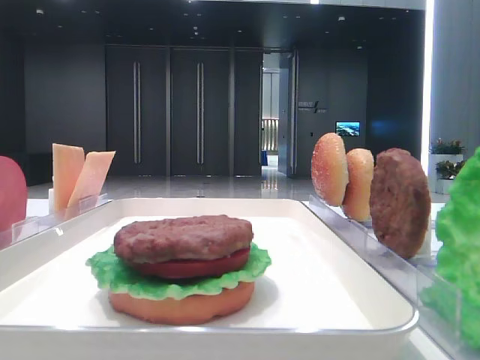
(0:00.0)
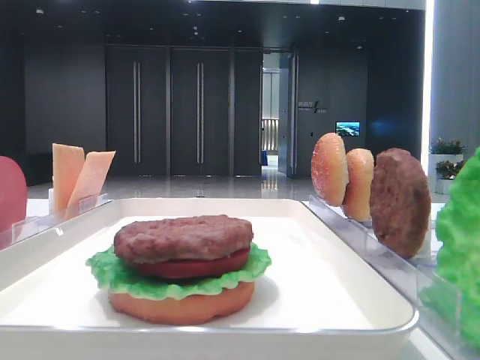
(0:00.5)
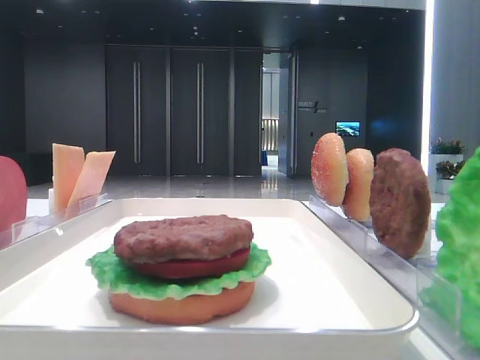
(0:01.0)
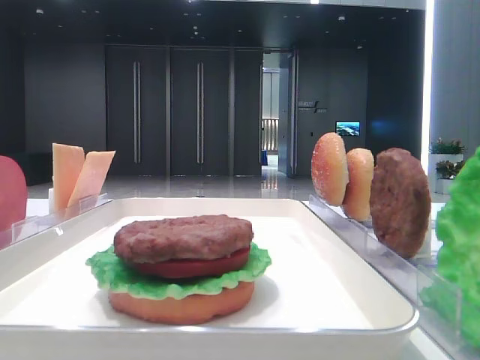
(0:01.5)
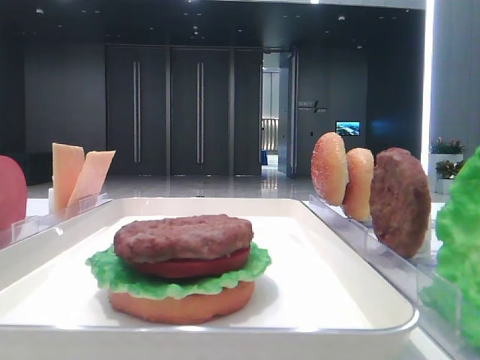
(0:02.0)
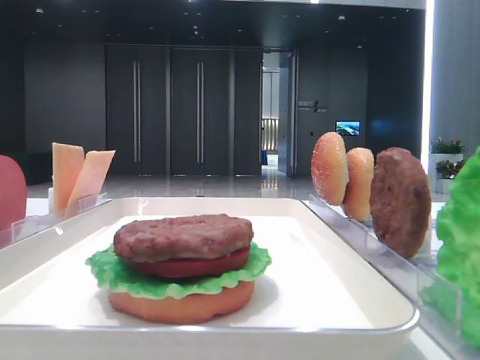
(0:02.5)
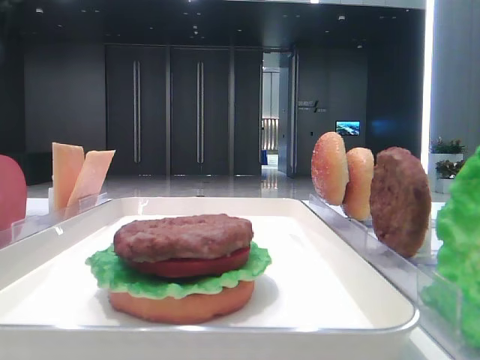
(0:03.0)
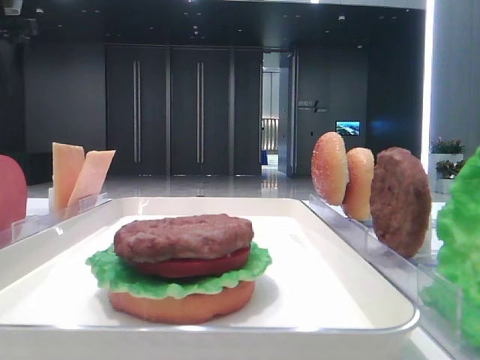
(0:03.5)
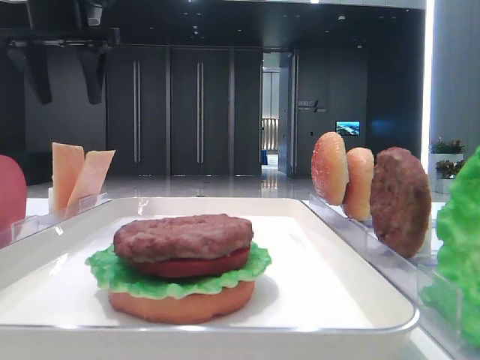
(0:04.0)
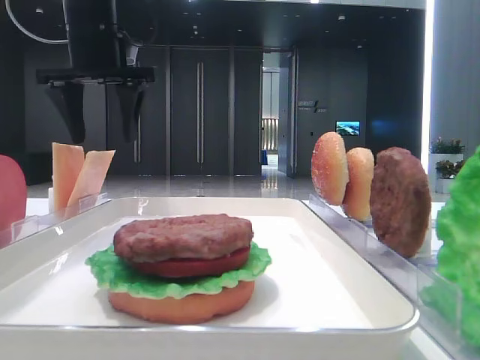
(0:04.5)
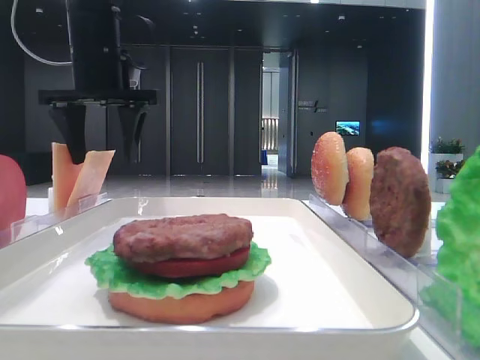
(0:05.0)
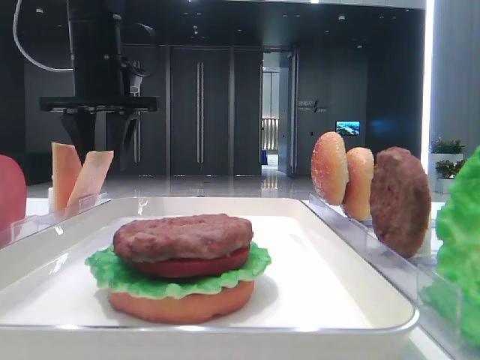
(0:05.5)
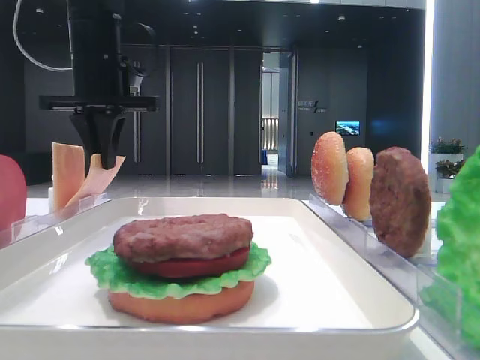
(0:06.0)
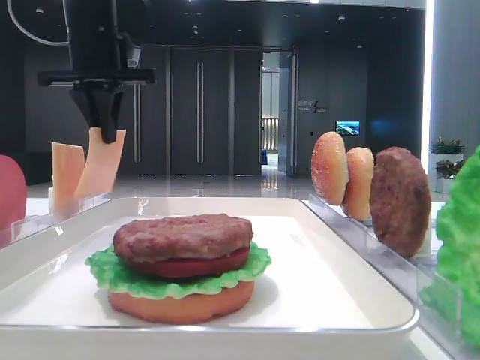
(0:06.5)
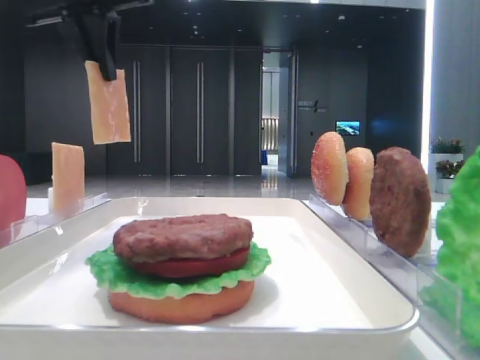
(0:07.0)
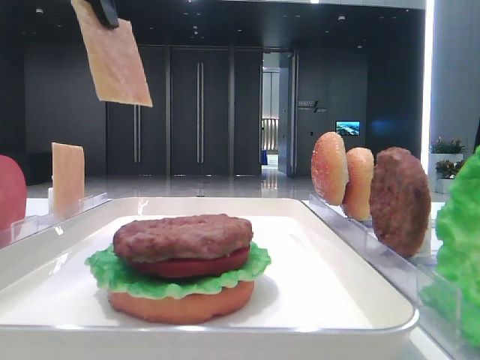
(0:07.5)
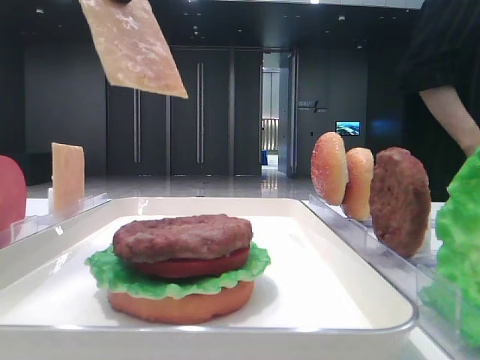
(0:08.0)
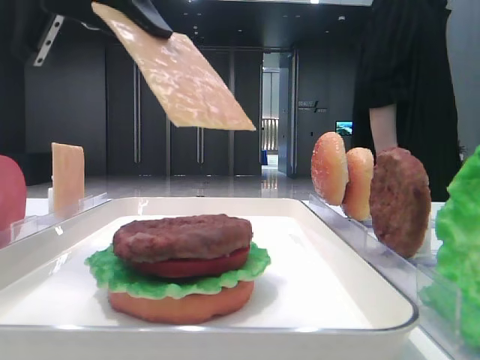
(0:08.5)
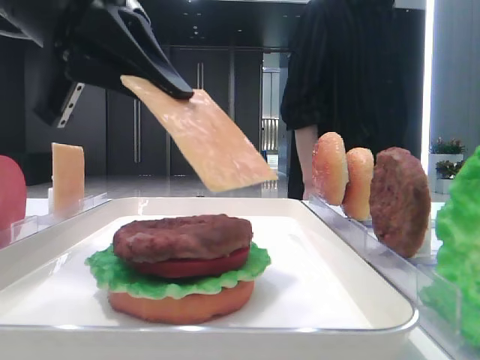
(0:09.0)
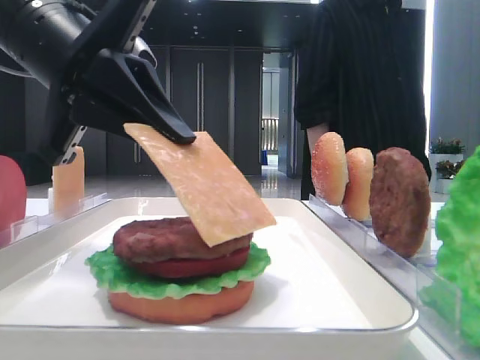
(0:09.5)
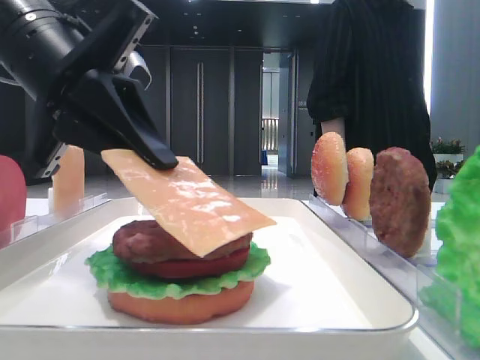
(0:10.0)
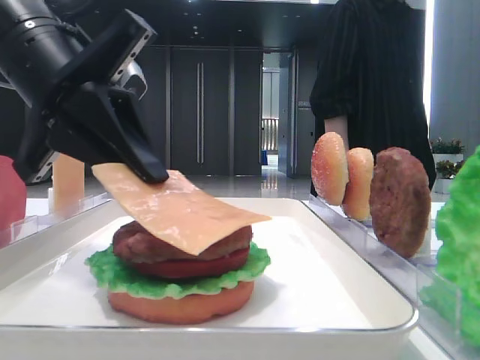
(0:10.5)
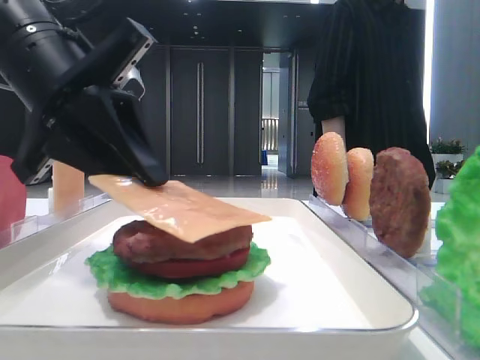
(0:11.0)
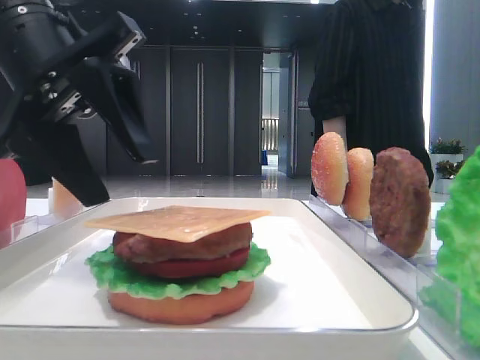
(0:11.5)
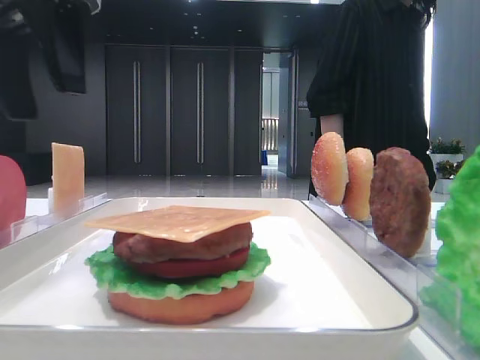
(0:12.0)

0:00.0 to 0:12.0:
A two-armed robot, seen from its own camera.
Step, 0:00.0 to 0:06.0: Pick up the cheese slice with the left hand.
Step, 0:06.5 to 0:11.0: Place the cheese slice on the patty with the left hand.
0:02.0 to 0:04.0: The left gripper travels forward and to the right by approximately 25 cm.
0:04.0 to 0:06.0: The left gripper heads downward and to the right, covering roughly 10 cm, and closes its fingers.
0:06.0 to 0:08.0: The left gripper travels backward and upward by approximately 20 cm.
0:08.0 to 0:10.0: The left gripper travels downward by roughly 15 cm.
0:10.0 to 0:12.0: The left gripper is displaced upward by some 10 cm, and opens.

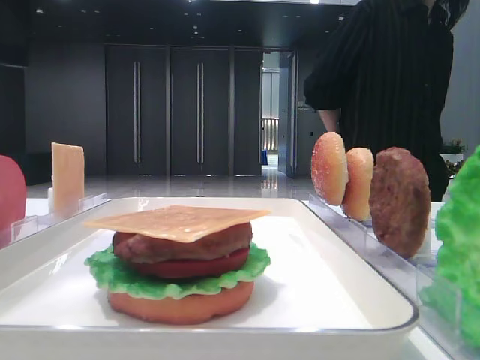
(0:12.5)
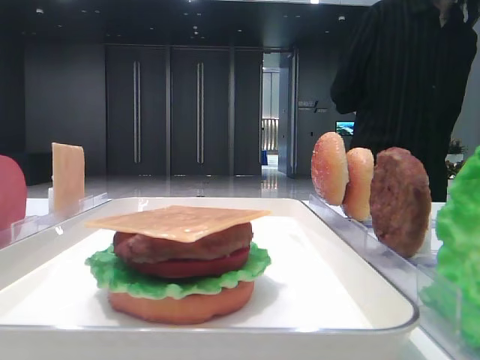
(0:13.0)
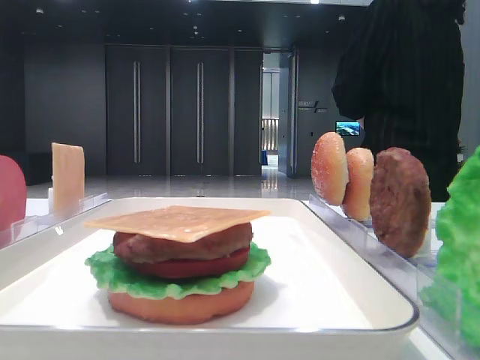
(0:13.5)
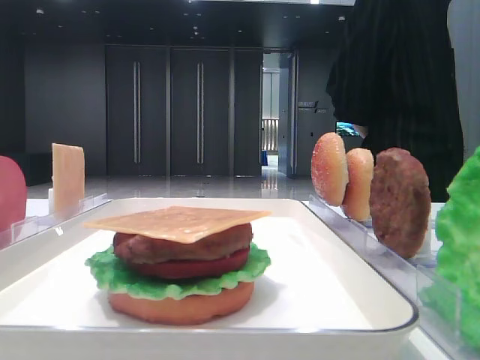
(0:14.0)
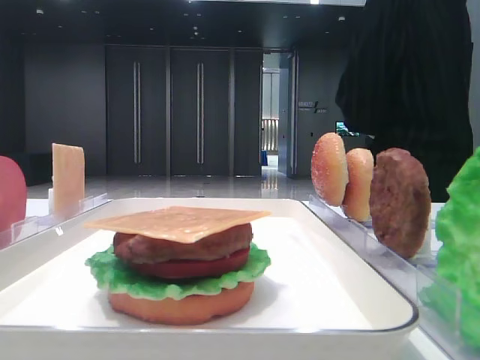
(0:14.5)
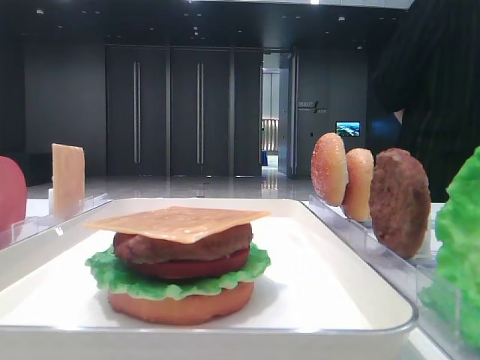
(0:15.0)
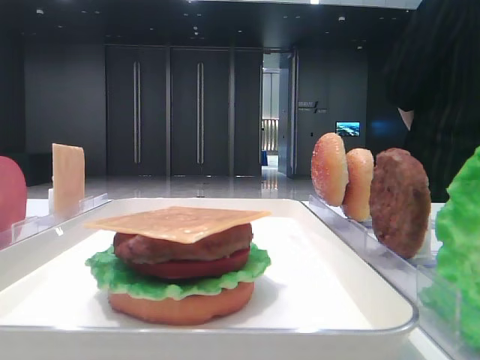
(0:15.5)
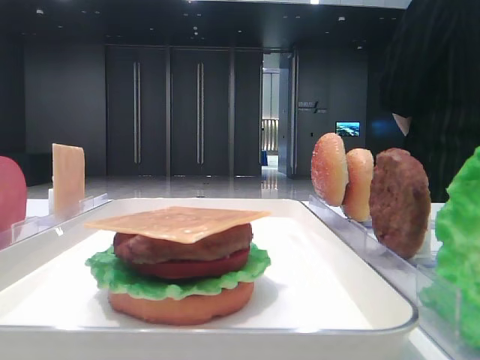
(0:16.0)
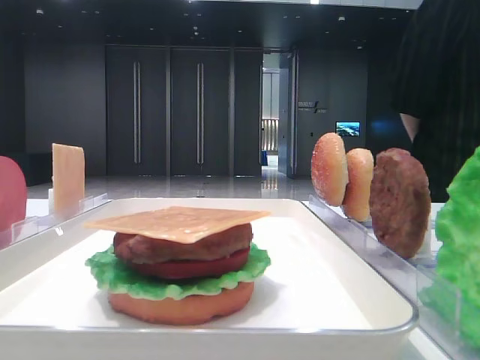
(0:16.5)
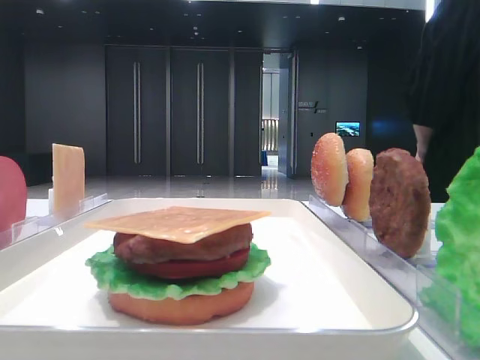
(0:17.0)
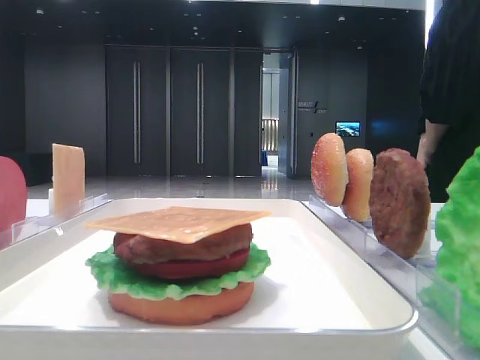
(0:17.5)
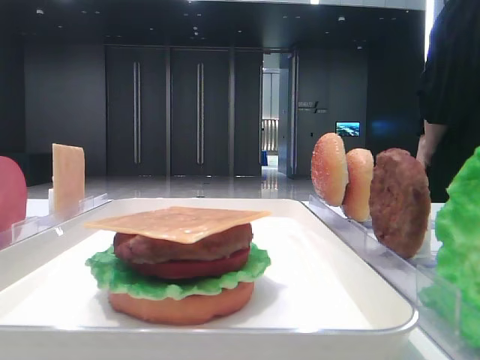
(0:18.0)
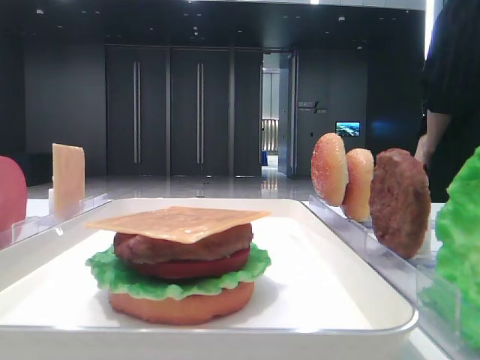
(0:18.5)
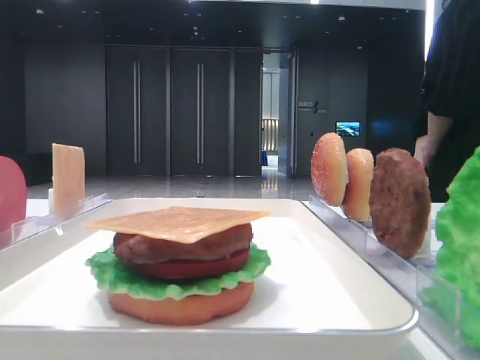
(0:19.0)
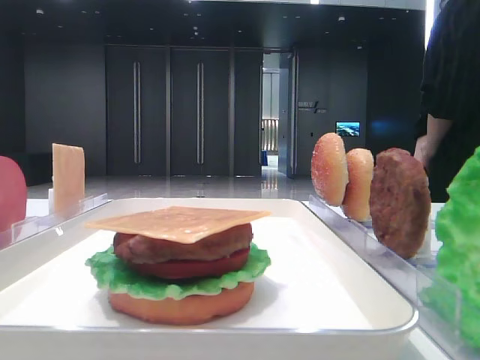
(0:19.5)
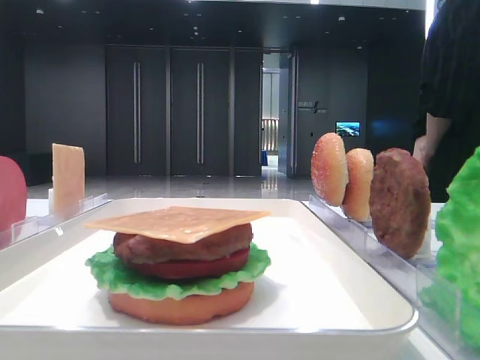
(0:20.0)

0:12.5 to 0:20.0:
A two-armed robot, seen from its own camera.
0:12.5 to 0:14.5: The left gripper moves backward, some 30 cm.
0:14.5 to 0:16.5: The grippers stay close to where they were, moving slightly.
0:16.5 to 0:18.0: Both grippers stay about where they are.

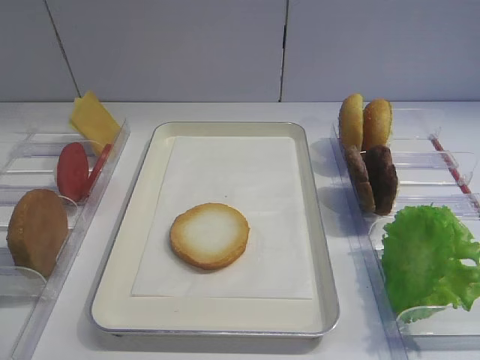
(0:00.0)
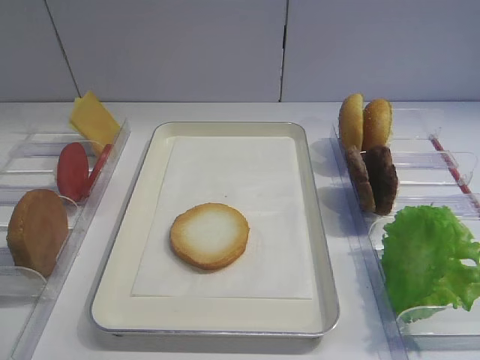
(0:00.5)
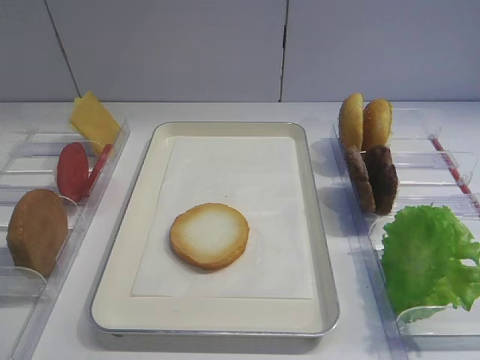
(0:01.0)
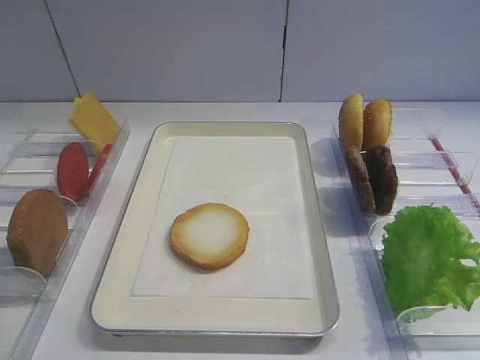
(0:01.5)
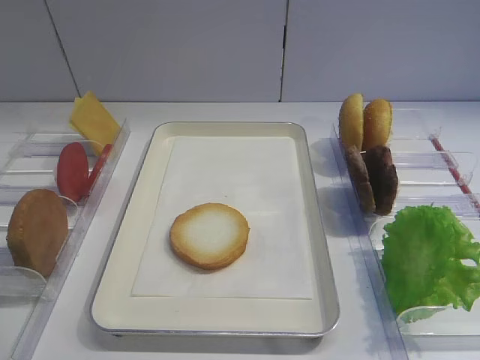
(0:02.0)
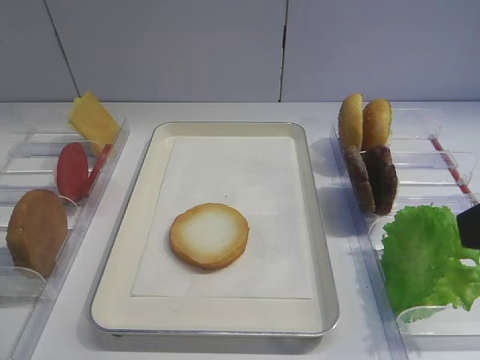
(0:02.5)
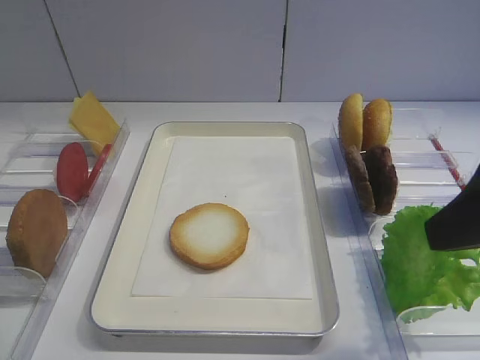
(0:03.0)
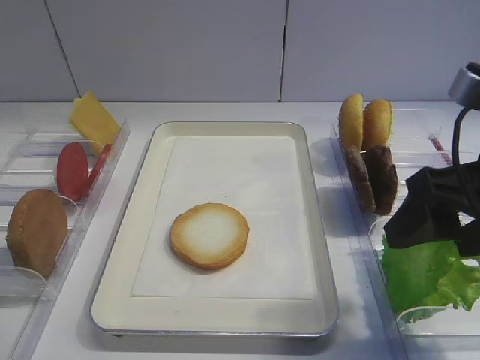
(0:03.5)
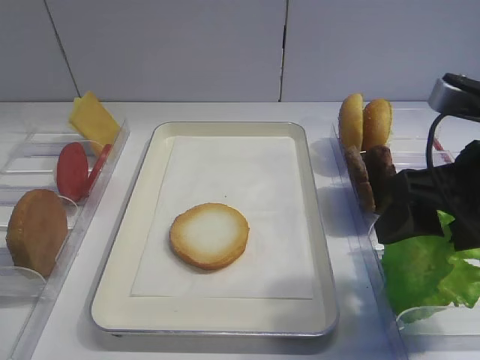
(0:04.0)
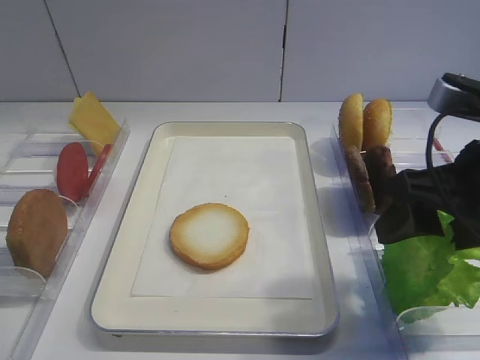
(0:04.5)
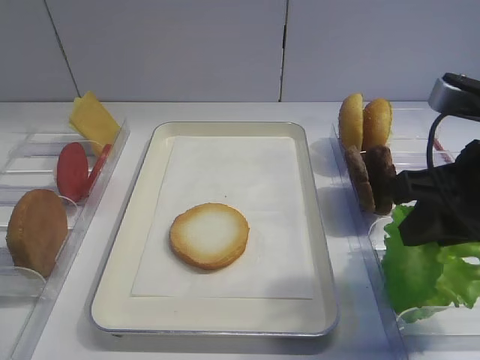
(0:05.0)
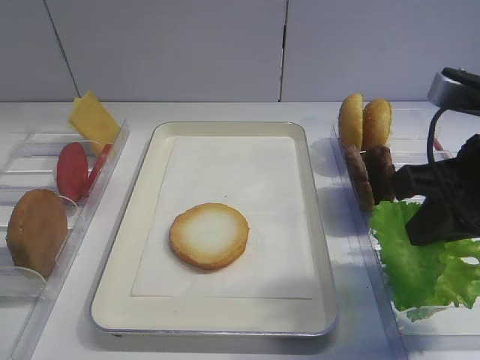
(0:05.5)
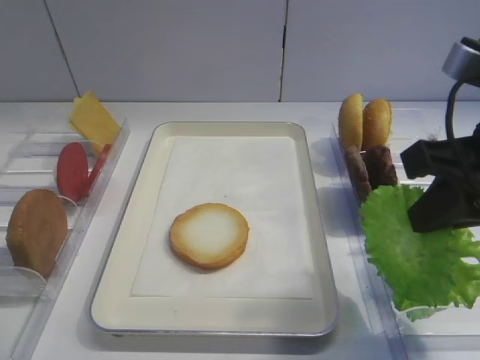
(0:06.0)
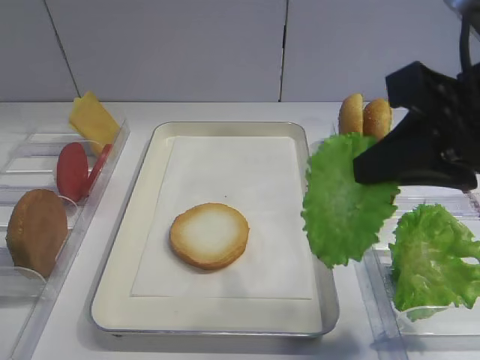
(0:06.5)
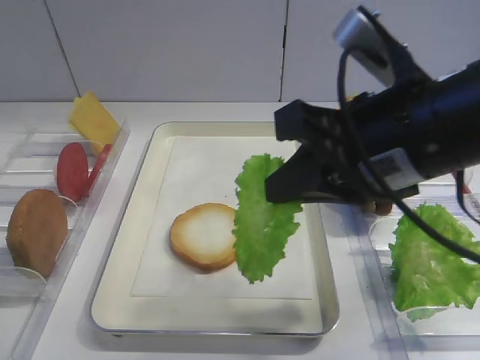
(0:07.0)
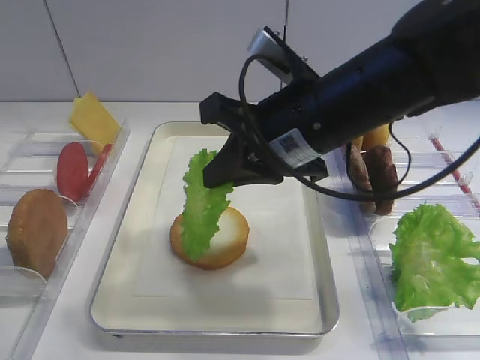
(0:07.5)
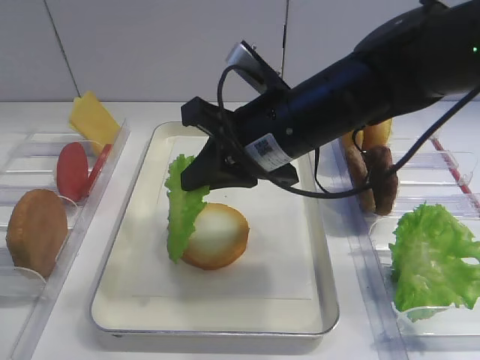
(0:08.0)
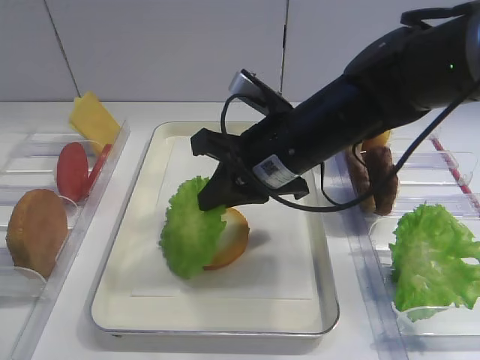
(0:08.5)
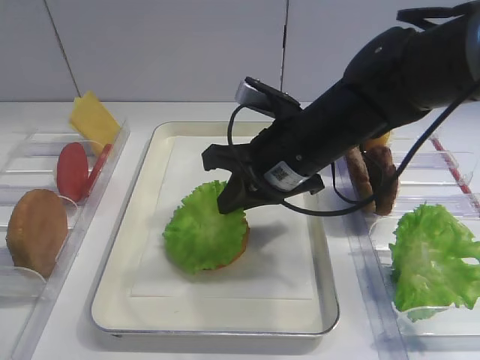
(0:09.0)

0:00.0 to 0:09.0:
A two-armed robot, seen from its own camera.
Step, 0:00.0 to 0:06.0: Pick up the lettuce leaf with the right gripper.
0:02.0 to 0:04.5: The right gripper moves forward and downward, about 15 cm.
0:04.5 to 0:07.0: The right gripper travels to the left by some 10 cm, and closes its fingers.
0:07.0 to 0:09.0: The right gripper heads forward, downward and to the left, covering approximately 15 cm.
